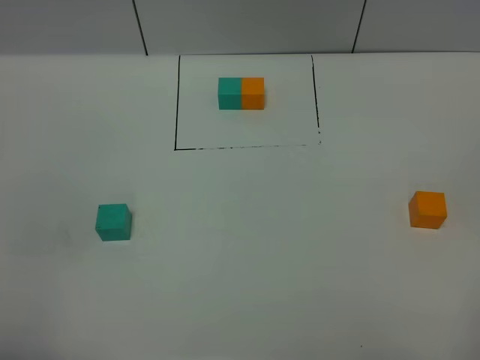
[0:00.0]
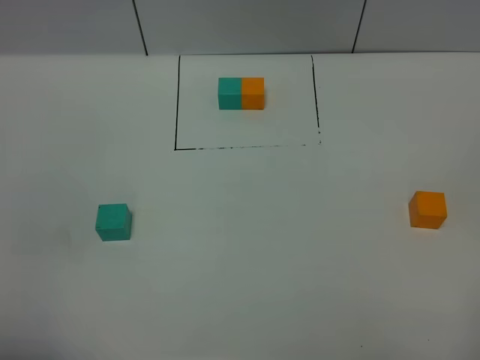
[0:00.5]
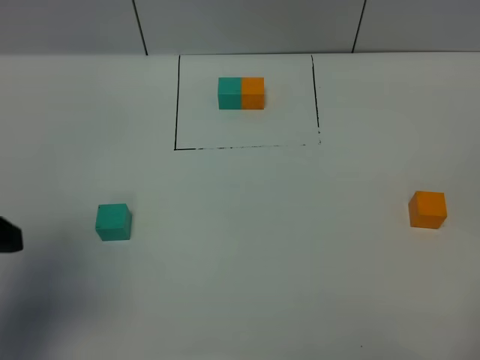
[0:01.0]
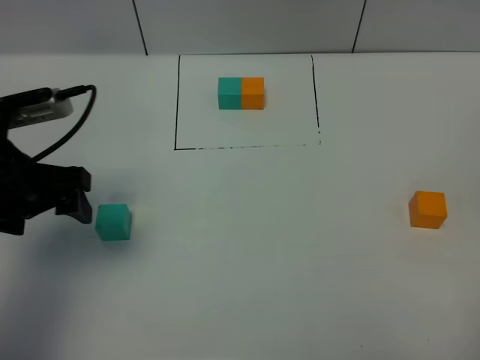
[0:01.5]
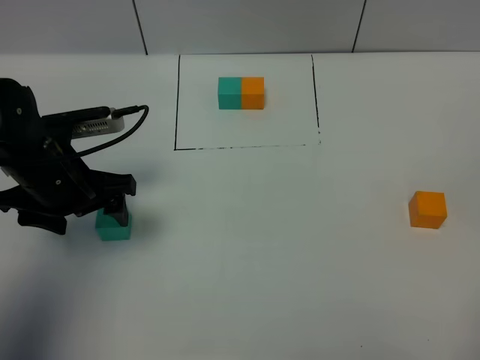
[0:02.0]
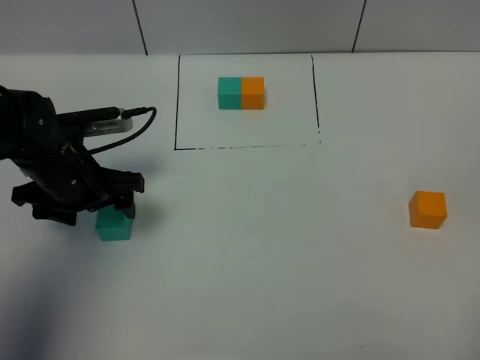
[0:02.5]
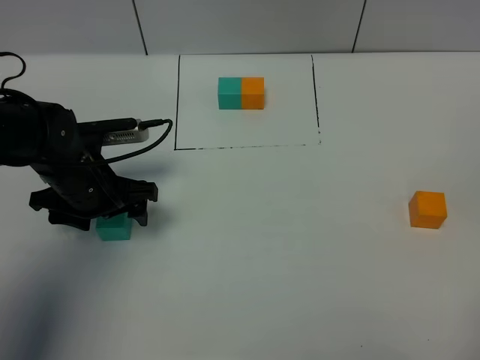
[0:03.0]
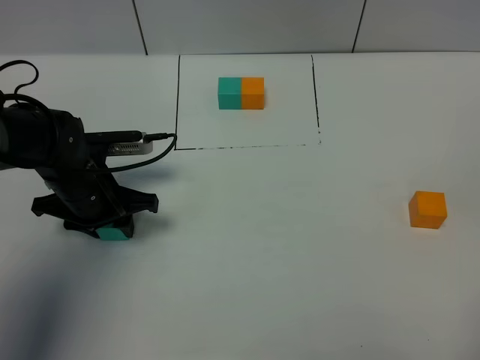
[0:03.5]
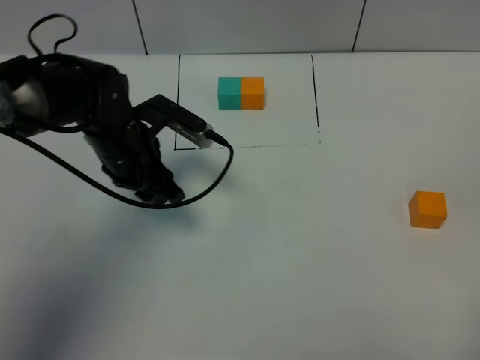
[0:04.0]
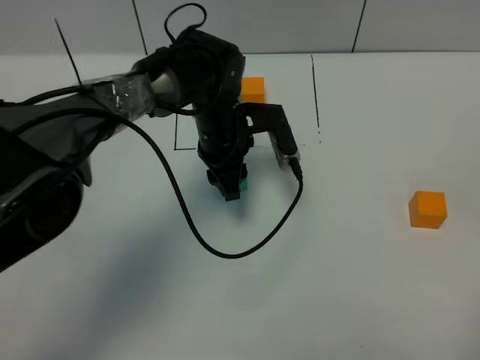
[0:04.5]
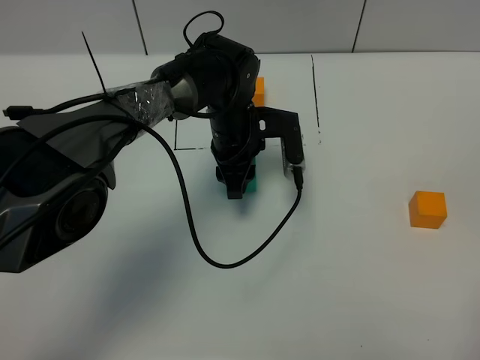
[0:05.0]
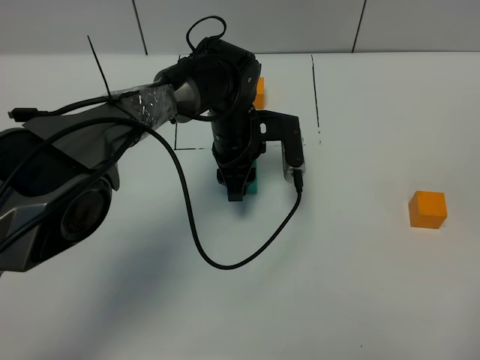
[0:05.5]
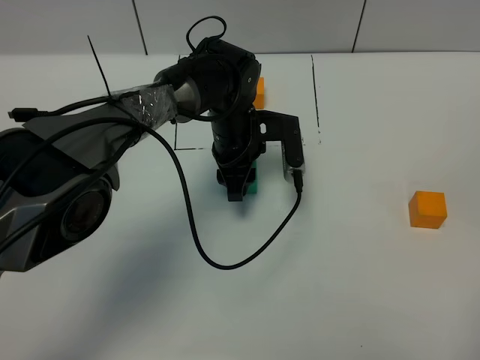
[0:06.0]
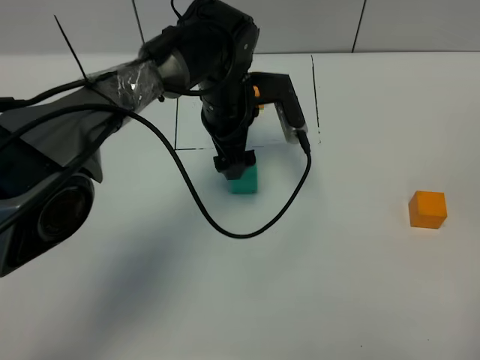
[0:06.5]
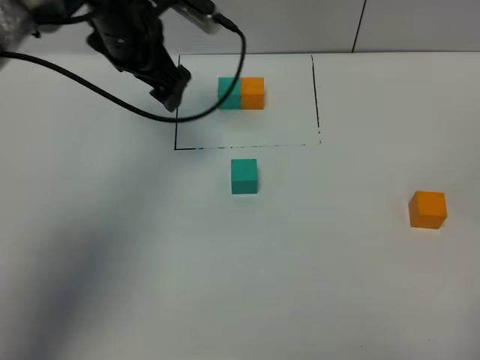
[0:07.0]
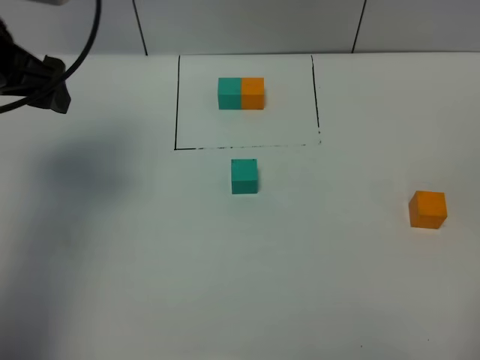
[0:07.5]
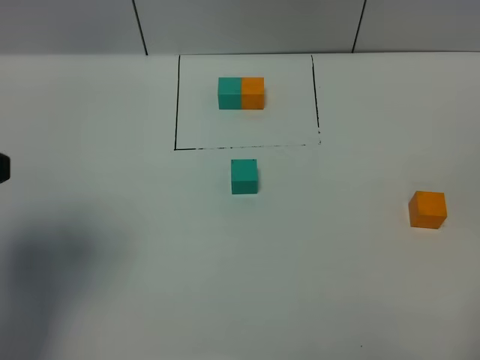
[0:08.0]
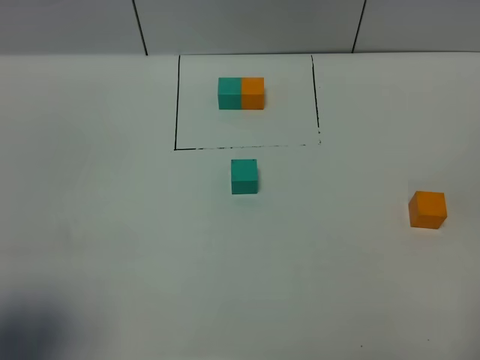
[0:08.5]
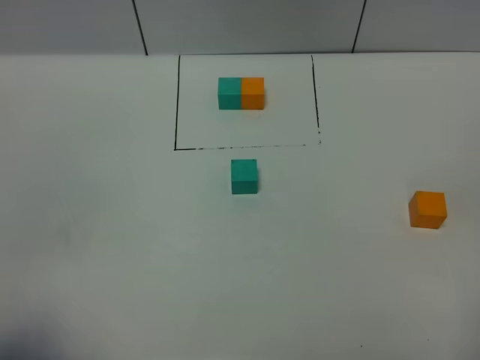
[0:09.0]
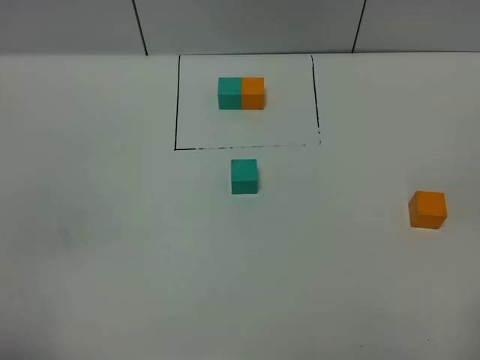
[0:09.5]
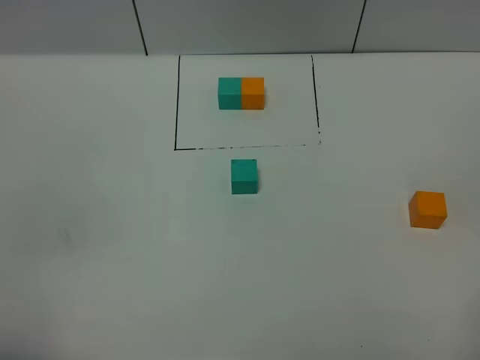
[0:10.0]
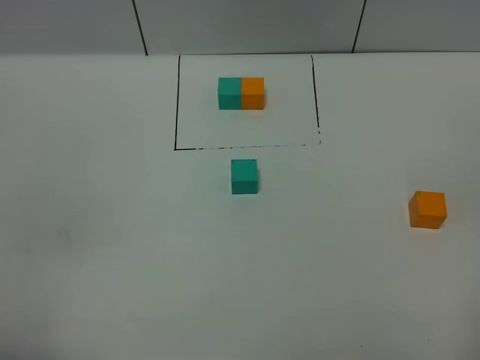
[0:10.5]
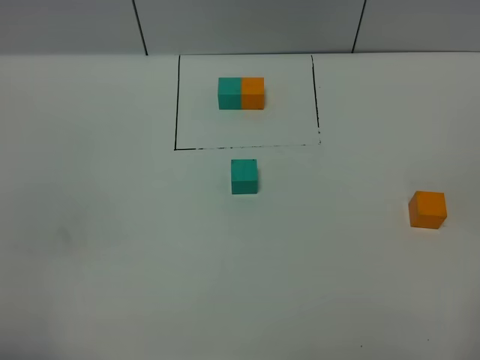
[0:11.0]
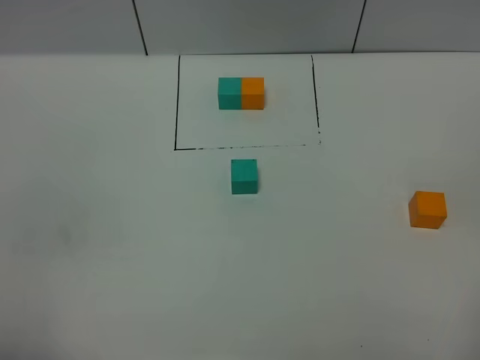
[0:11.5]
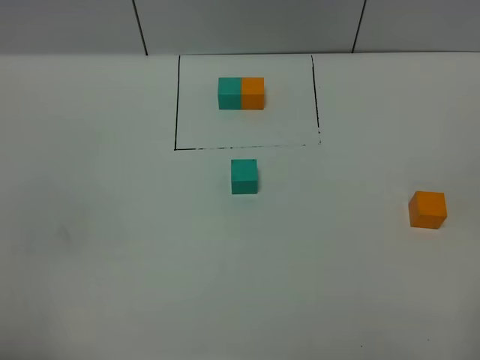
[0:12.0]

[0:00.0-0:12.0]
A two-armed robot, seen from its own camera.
Task of the whole recording: According to the building block template in front, assemble the scattered blocks together.
Step, 0:01.0 to 0:06.0: Put the green cube in the center of the table.
0:00.0 to 0:02.0: The left gripper is displaced forward by about 30 cm.
0:02.0 to 0:04.0: The left gripper goes approximately 10 cm to the right and forward, and closes up.
0:04.0 to 0:06.0: The left gripper goes some 15 cm to the right and forward.
0:06.0 to 0:08.0: The left gripper heads to the left, backward and upward, covering roughly 40 cm, and opens up.
0:08.0 to 0:10.0: The left gripper goes approximately 20 cm backward and downward.
0:10.0 to 0:12.0: Both grippers stay put.

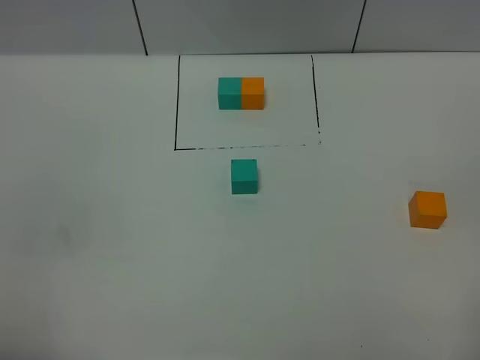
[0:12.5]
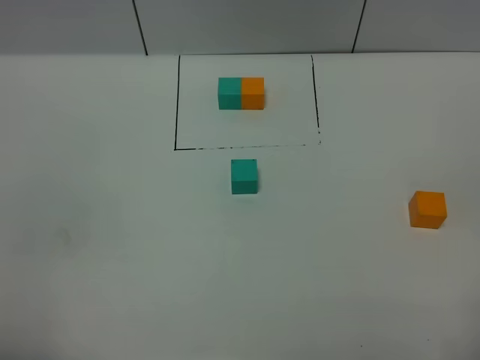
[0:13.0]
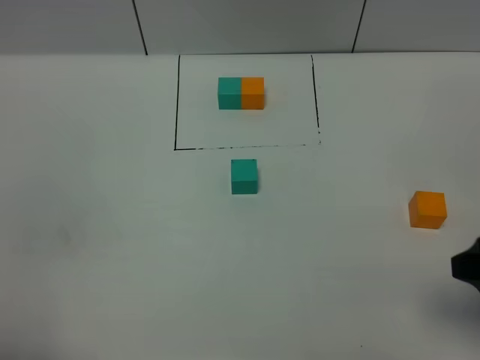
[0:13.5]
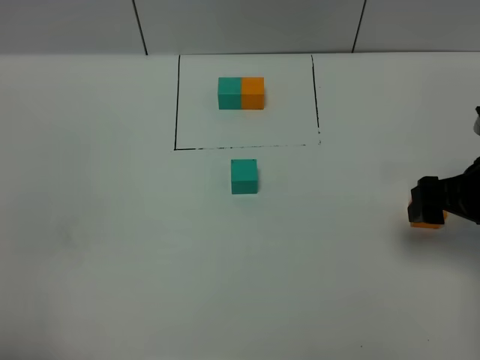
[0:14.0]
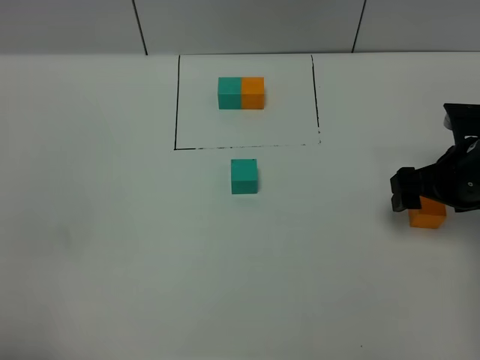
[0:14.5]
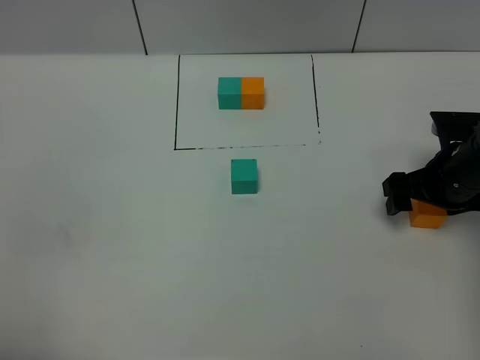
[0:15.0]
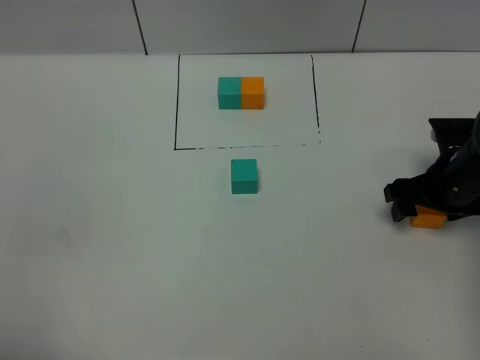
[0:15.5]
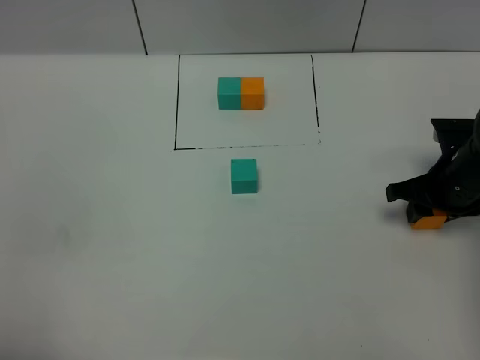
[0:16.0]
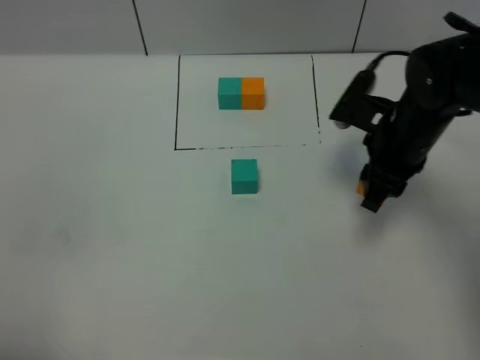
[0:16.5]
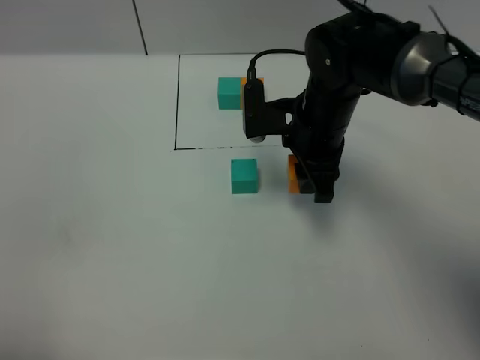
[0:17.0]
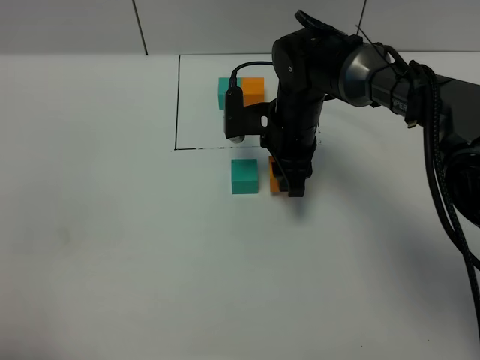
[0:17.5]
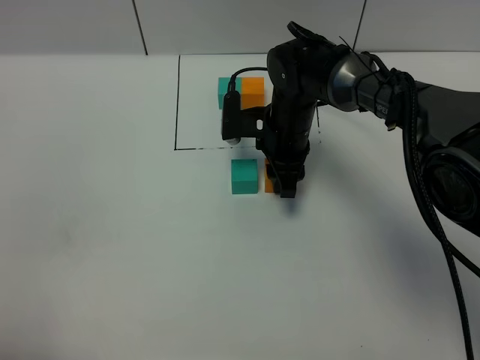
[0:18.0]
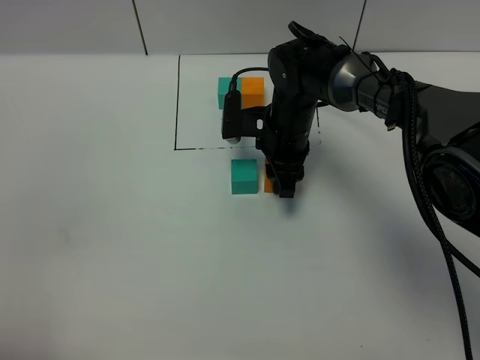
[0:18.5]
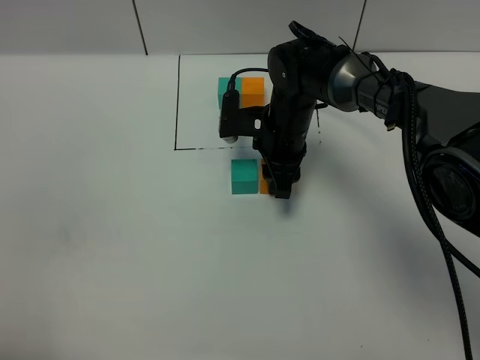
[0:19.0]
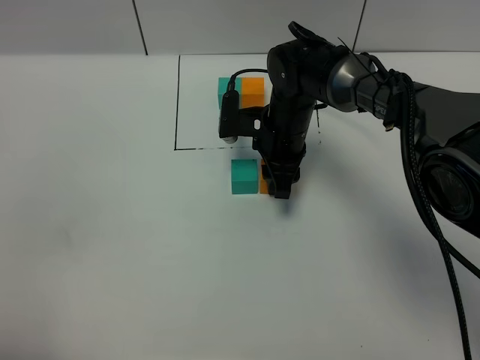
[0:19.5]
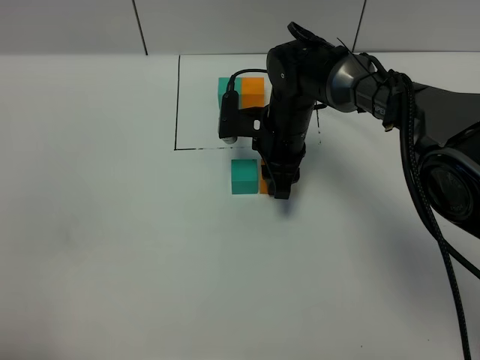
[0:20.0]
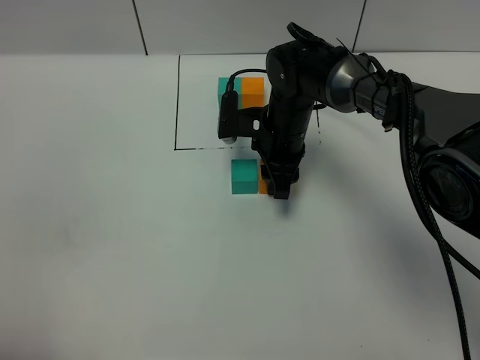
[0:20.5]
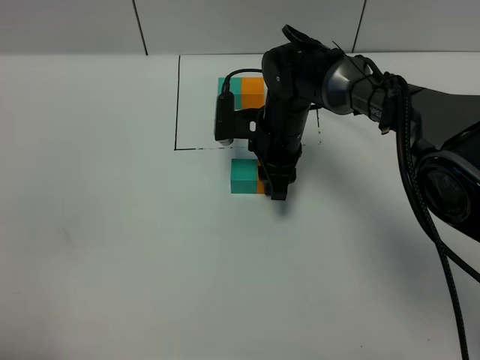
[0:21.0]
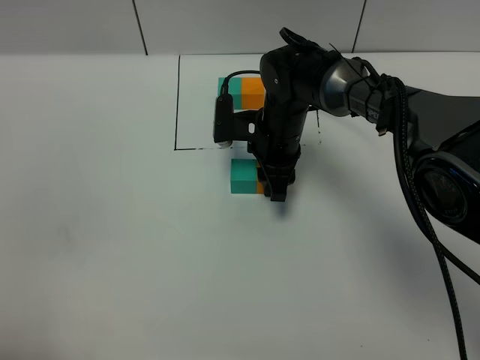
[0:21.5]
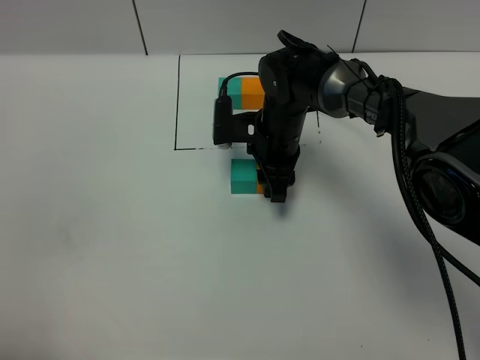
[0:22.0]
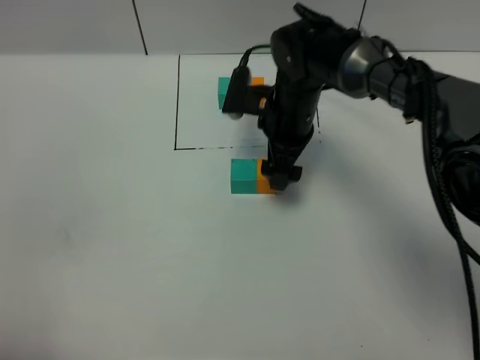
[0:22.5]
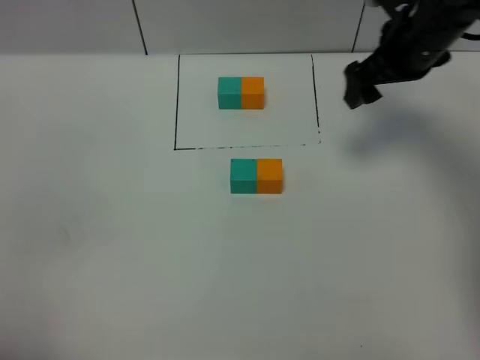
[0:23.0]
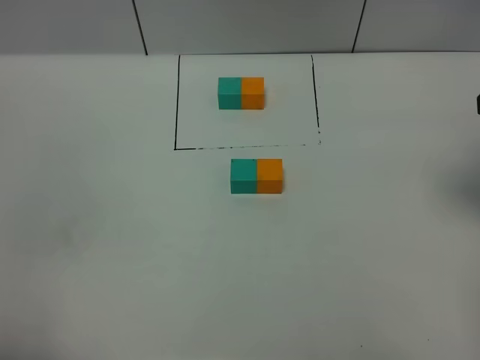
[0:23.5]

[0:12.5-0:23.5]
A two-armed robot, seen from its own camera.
Task of the whole recording: According to the building block template in front, assemble the scattered blocks together.
Step, 0:12.5 to 0:22.0: Put the orange cube on the right of the green cube.
0:12.5 to 0:14.5: The right gripper goes roughly 30 cm forward.
0:14.5 to 0:16.0: The right gripper closes its fingers.
0:16.0 to 0:18.0: The right gripper shifts some 20 cm to the left.
0:18.0 to 0:21.5: Both grippers stay put.
0:21.5 to 0:23.5: The right gripper is displaced to the right, upward and backward by about 35 cm, and opens.

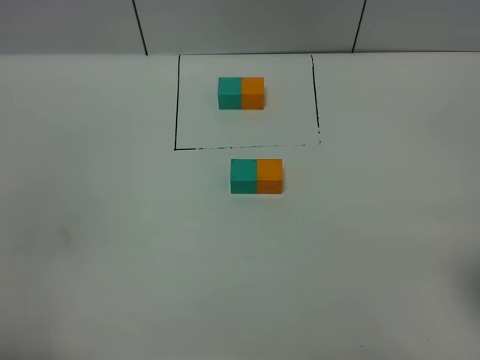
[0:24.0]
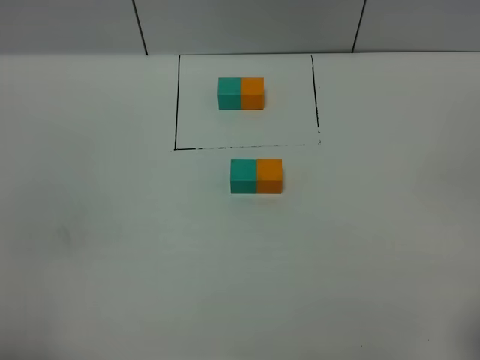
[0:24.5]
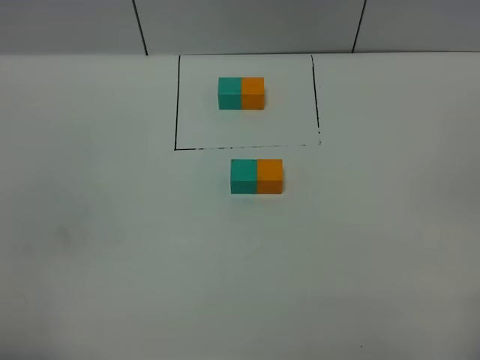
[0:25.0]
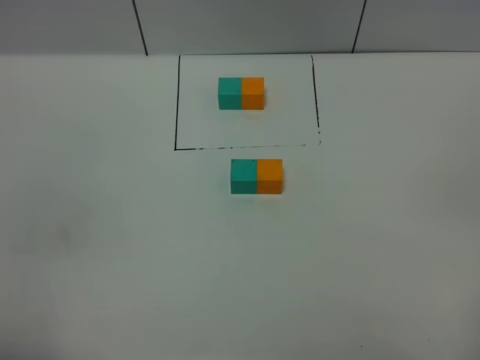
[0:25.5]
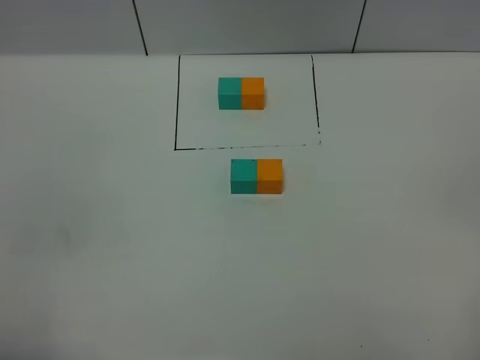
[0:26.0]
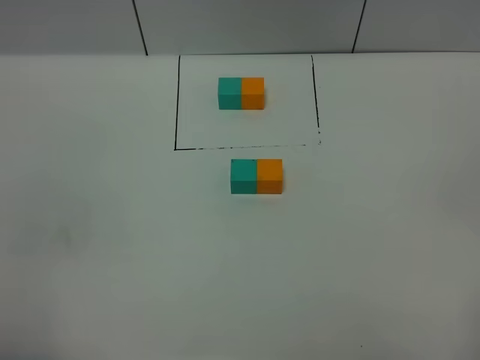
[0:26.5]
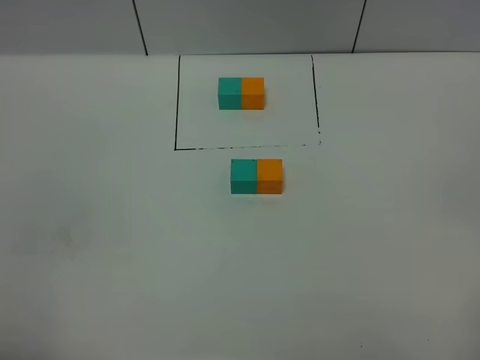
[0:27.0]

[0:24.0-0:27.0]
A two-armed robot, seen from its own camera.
Task of the whole recording: According to the building block template in front, assemble the scattered blocks together.
0:25.5 to 0:27.0: Both grippers stay put.
